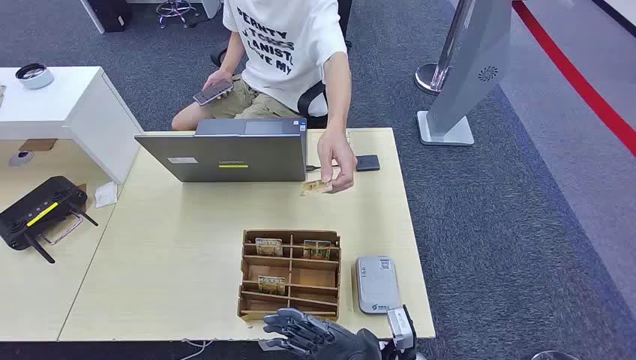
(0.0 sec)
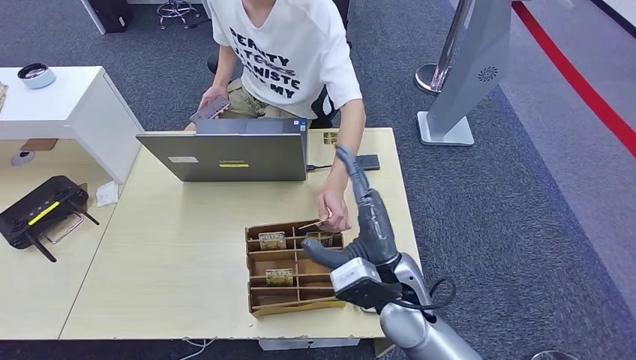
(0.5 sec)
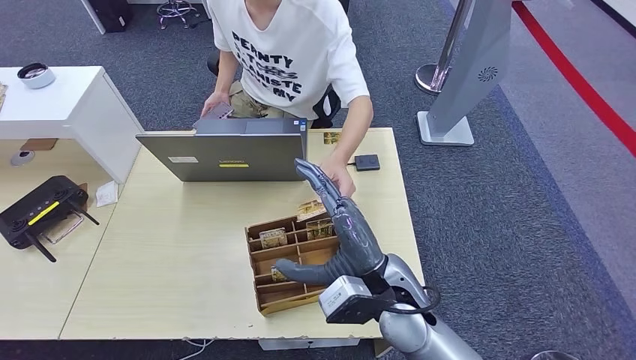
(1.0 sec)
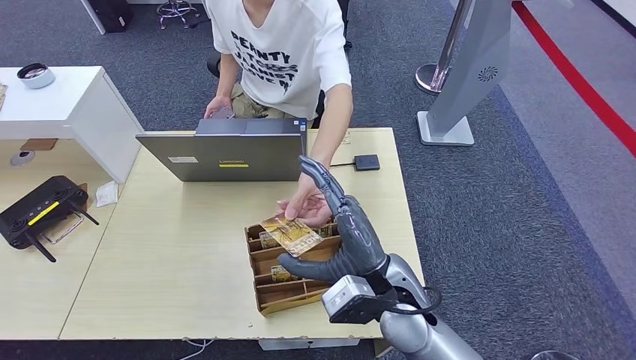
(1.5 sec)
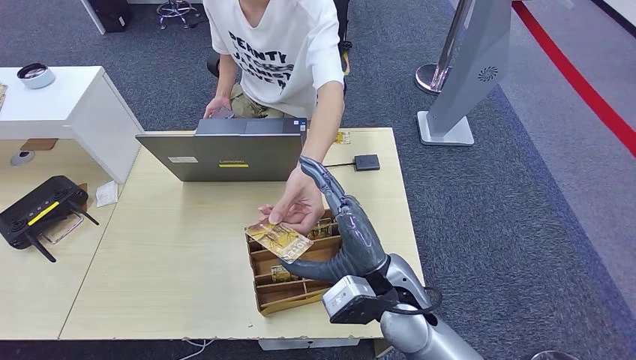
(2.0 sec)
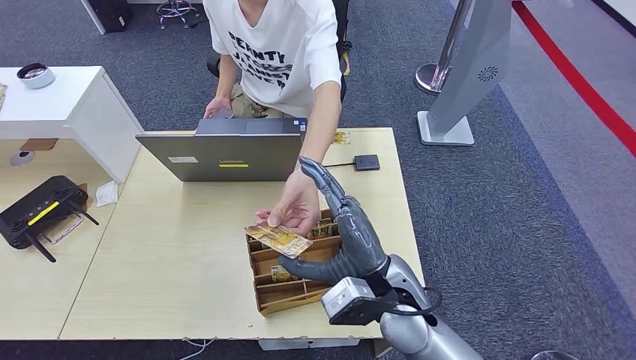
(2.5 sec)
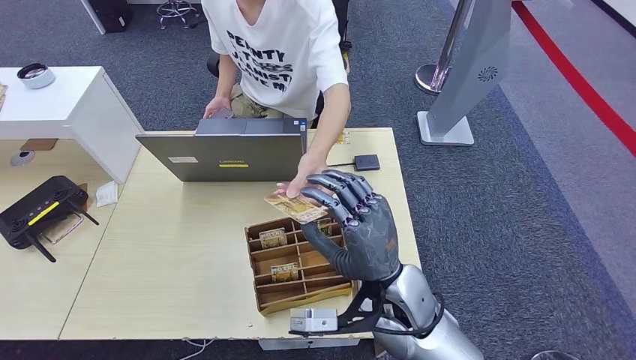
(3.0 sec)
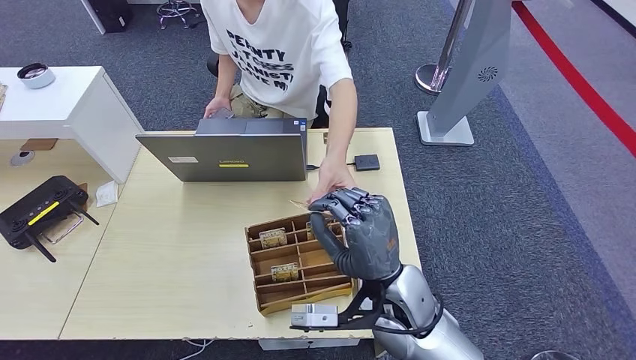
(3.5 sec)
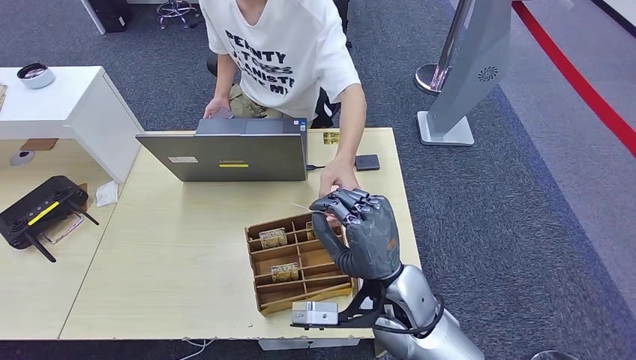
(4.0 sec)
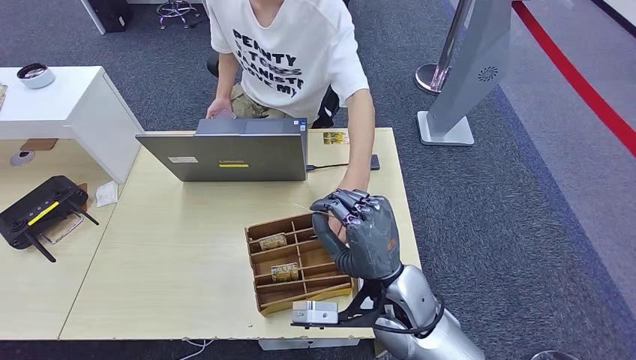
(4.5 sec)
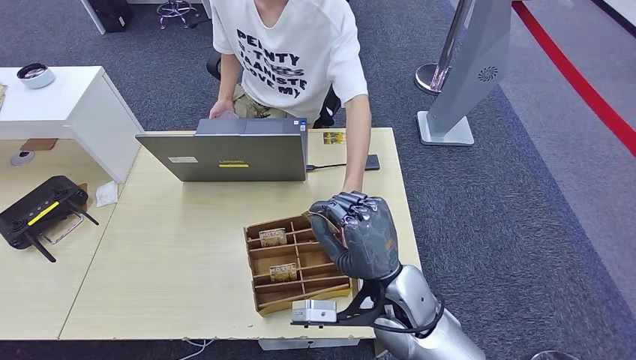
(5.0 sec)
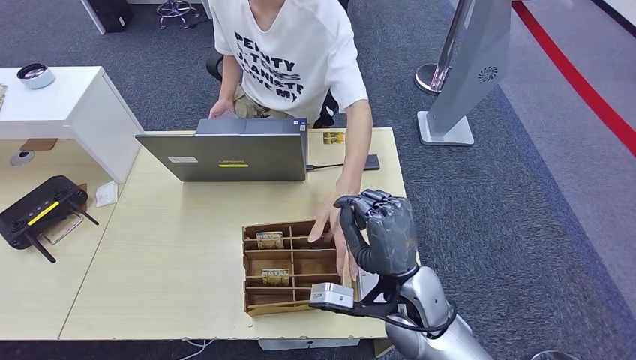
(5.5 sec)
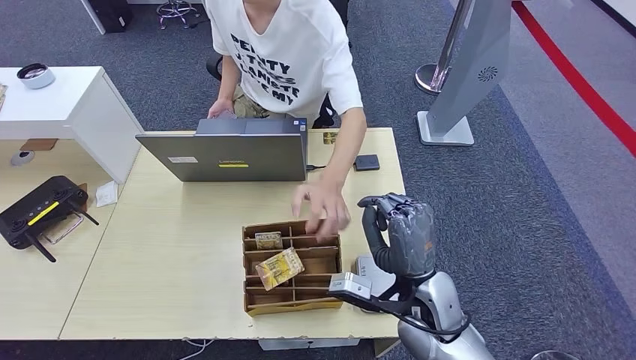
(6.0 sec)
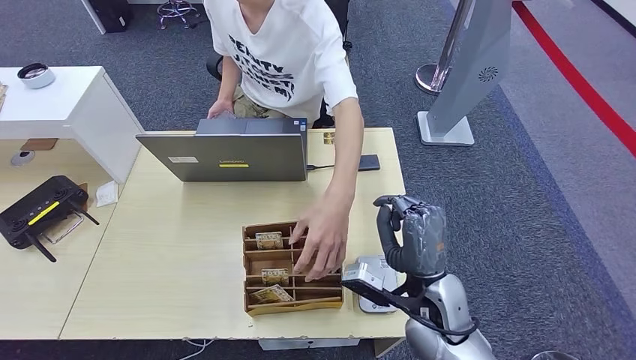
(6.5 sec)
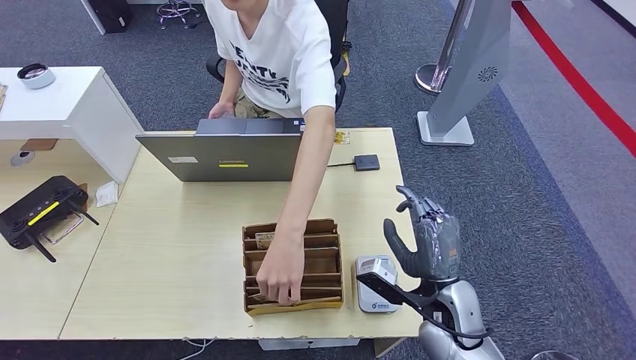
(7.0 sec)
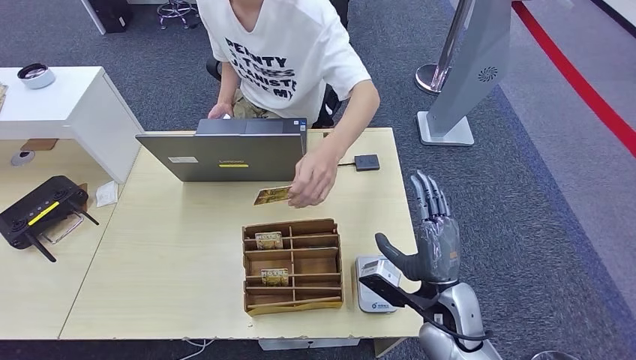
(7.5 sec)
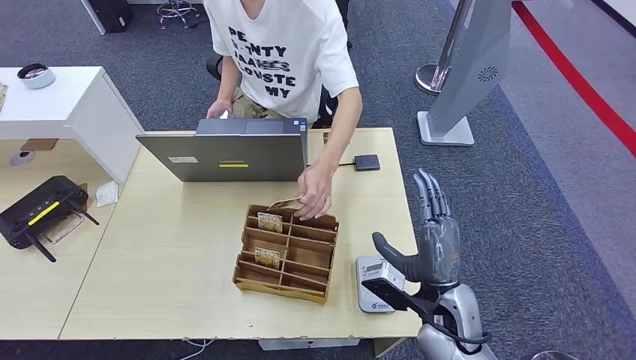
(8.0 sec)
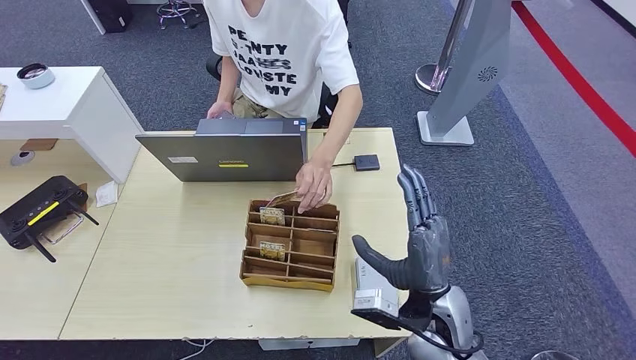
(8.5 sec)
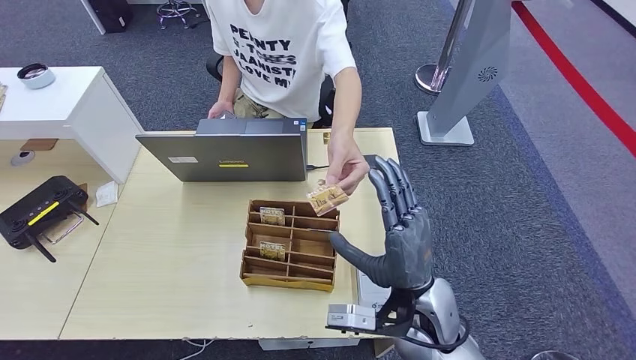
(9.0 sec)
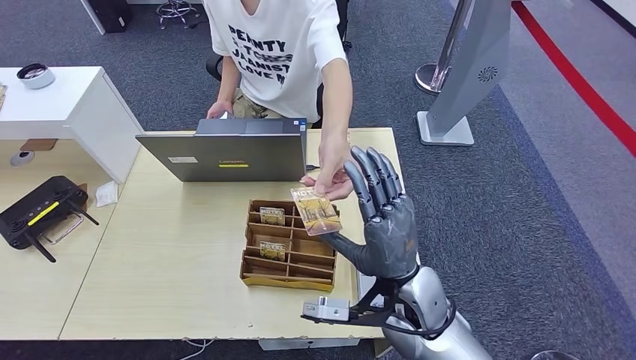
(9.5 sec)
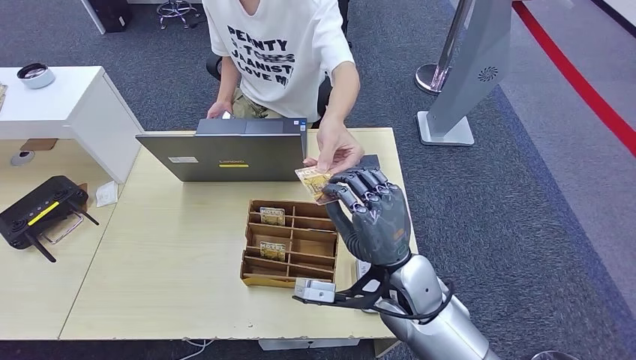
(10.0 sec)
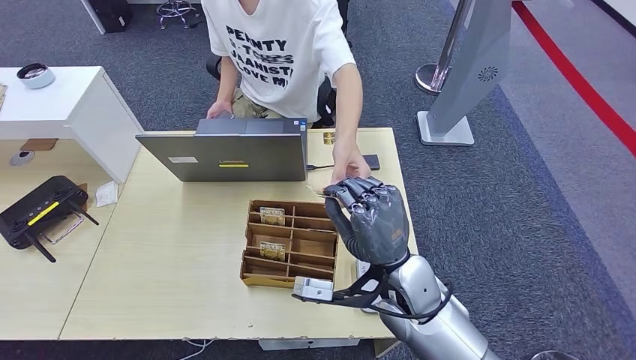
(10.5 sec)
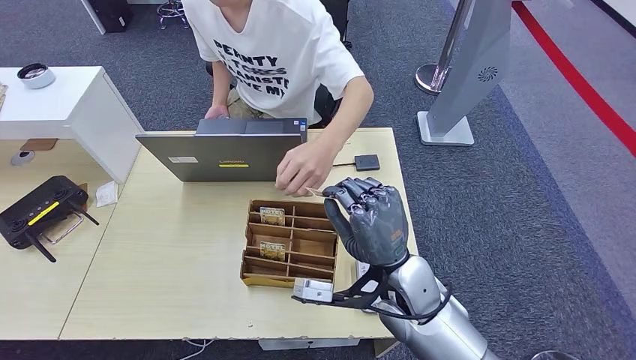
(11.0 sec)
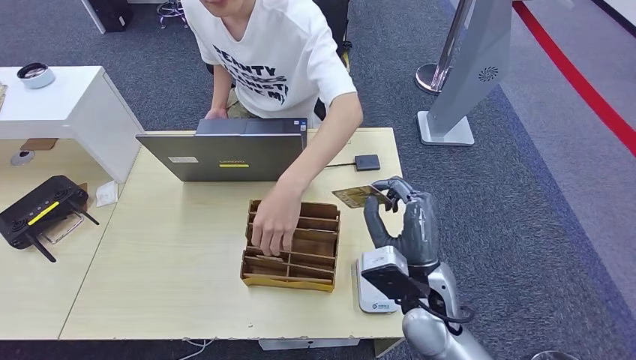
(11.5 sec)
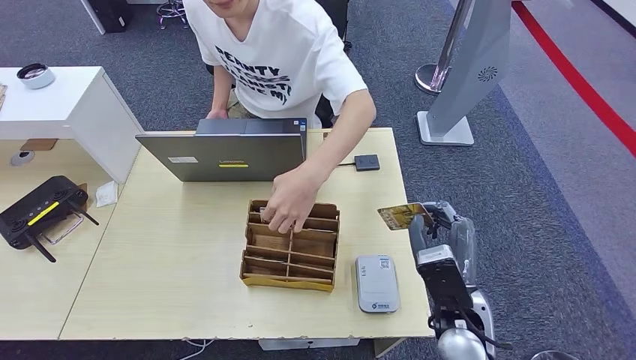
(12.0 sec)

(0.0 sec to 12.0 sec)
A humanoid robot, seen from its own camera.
Step, 0.0 sec - 10.5 sec: Take the ID card from the person's hand.
4.0 sec - 6.0 sec: The right hand changes place by some 5 cm.
6.0 sec - 8.0 sec: The hands move only a little.
8.0 sec - 10.0 sec: The right hand travels to the left and upward by roughly 10 cm.
10.0 sec - 12.0 sec: The right hand heads to the right and backward, covering about 10 cm.

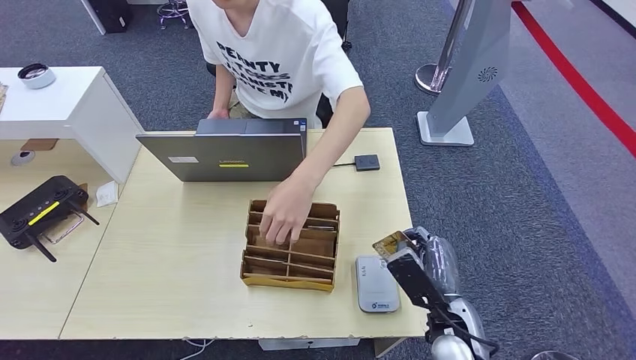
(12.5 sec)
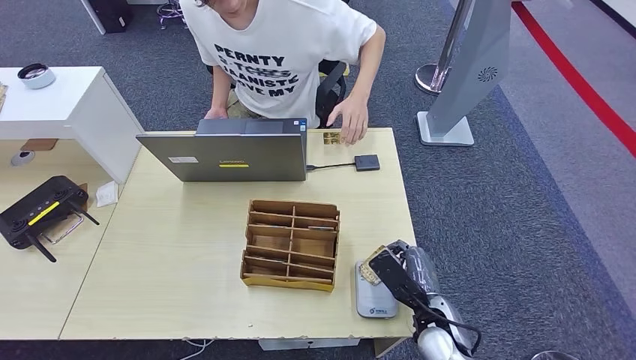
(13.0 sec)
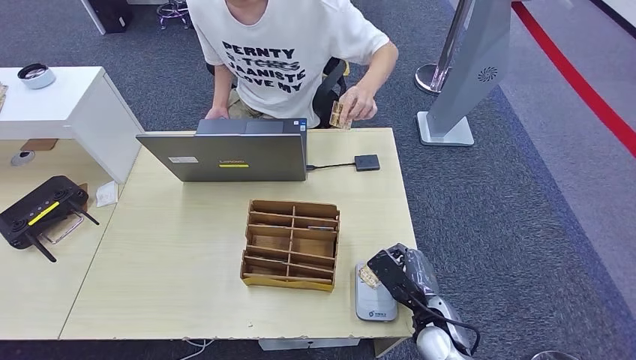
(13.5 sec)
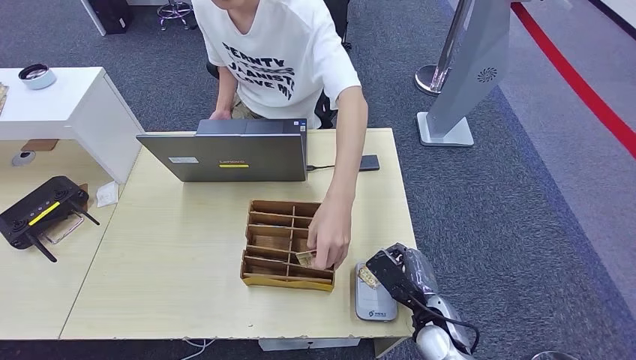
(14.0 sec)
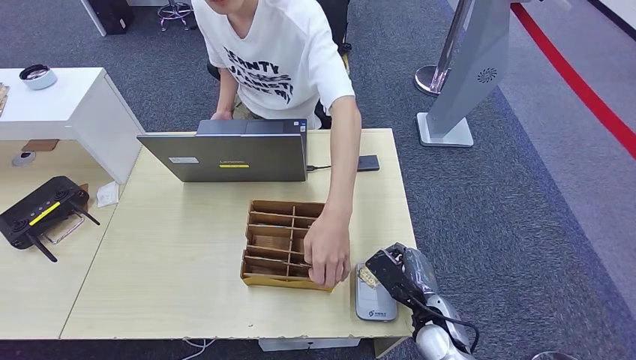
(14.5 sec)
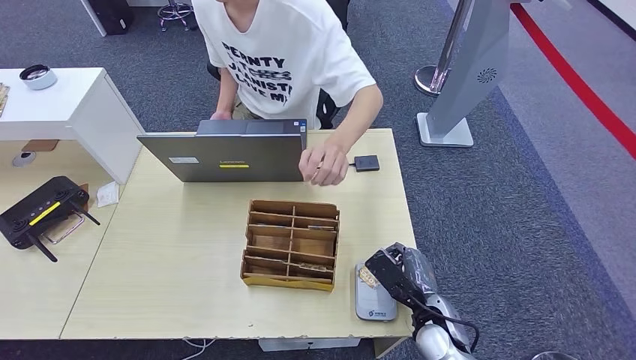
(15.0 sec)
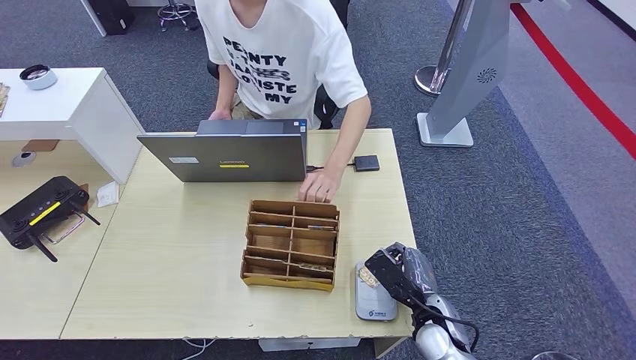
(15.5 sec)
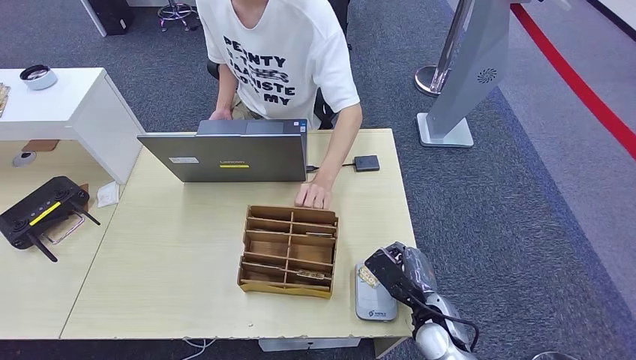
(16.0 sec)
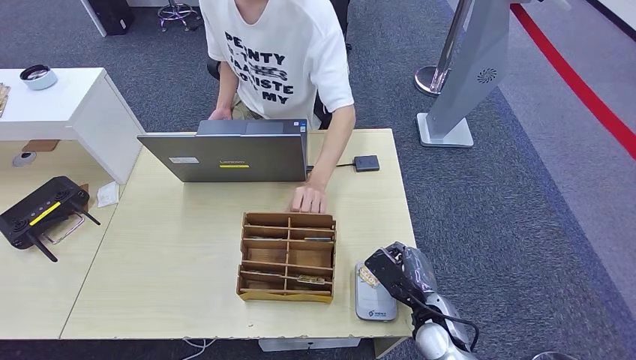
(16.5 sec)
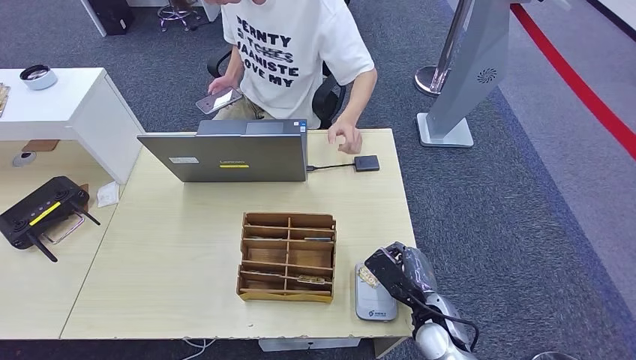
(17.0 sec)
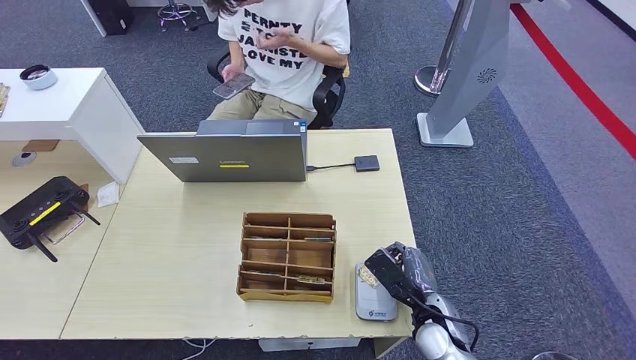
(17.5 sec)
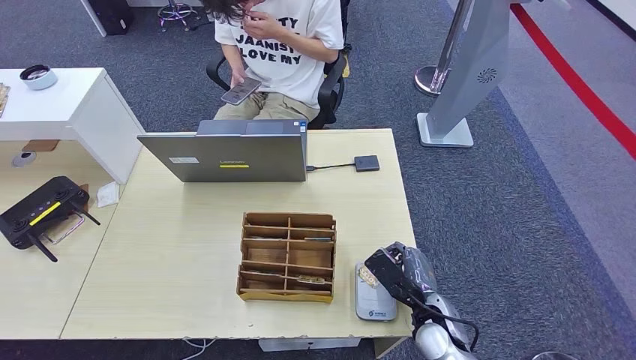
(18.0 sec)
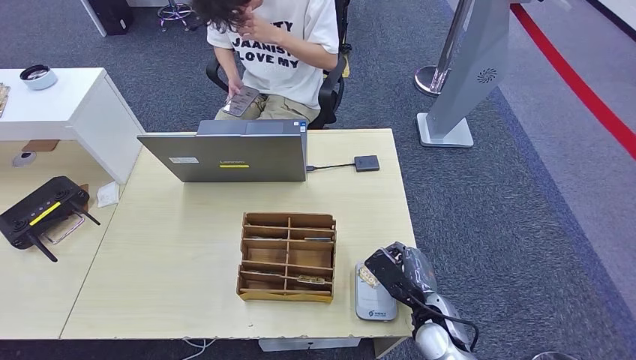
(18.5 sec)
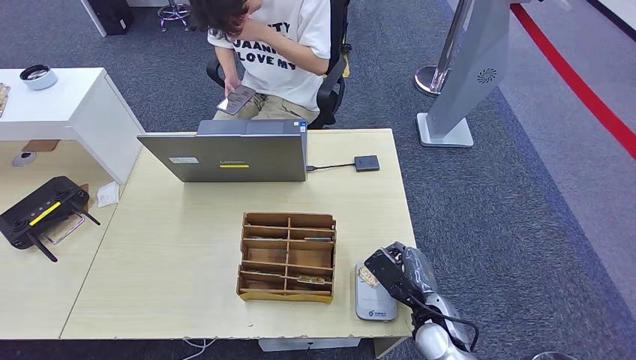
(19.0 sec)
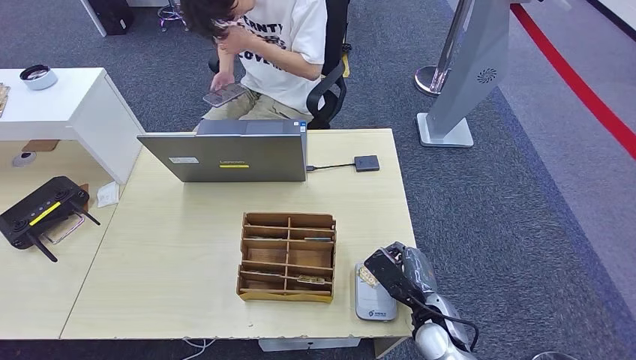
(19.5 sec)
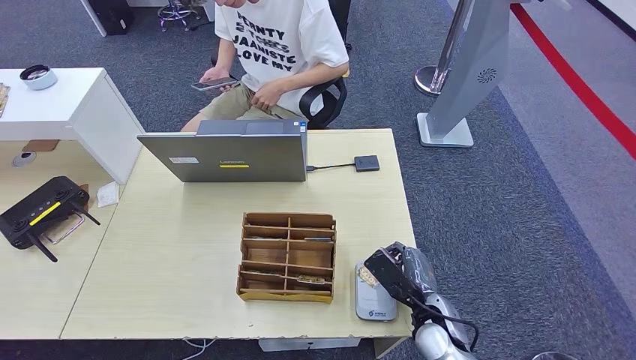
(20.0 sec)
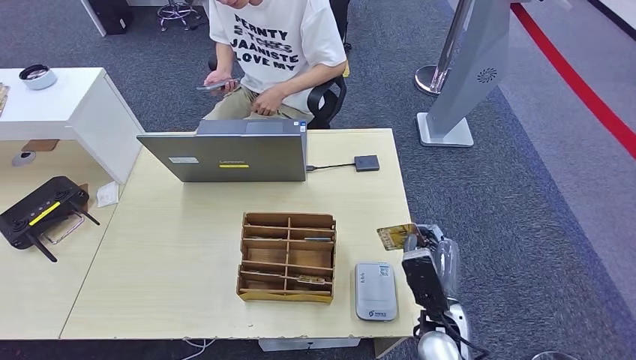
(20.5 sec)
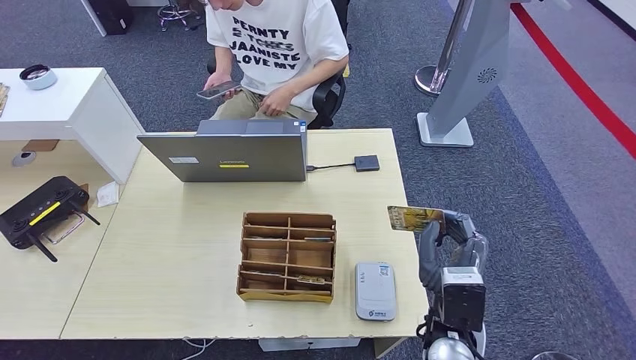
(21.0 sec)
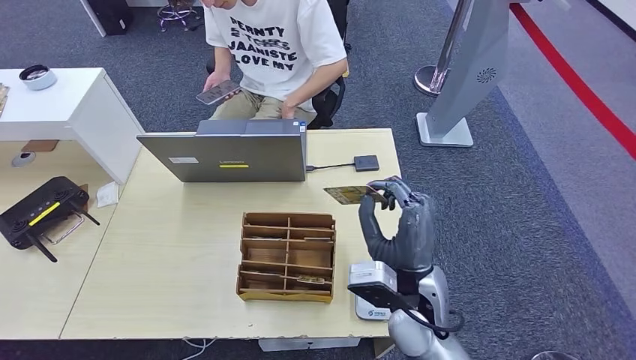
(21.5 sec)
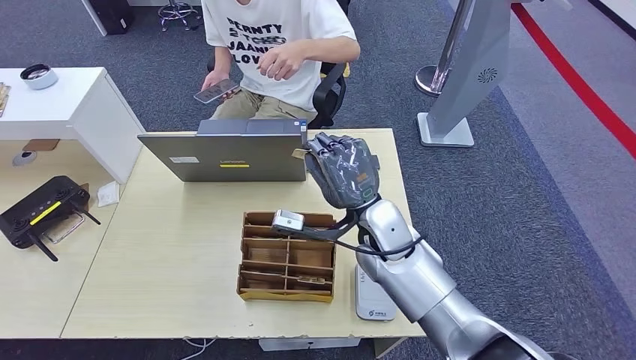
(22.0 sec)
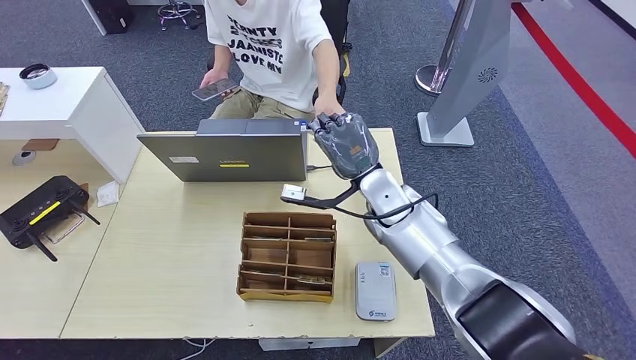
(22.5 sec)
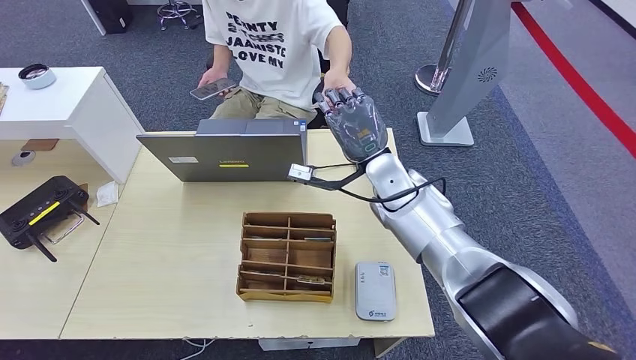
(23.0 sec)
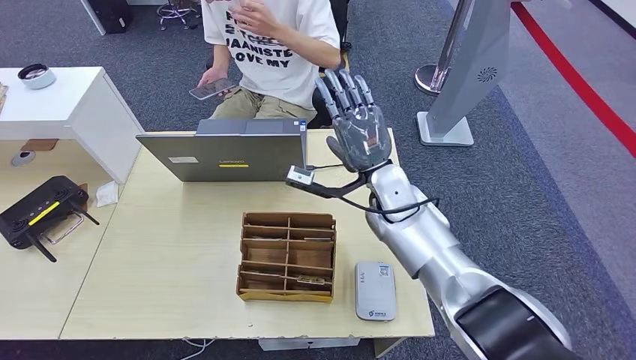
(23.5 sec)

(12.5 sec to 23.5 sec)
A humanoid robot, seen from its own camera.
Step, 14.0 sec - 23.0 sec: Hand the ID card to the person.
12.5 sec - 14.5 sec: The right hand heads downward, covering roughly 5 cm.
14.5 sec - 20.0 sec: The two hands keep their place.
20.0 sec - 21.5 sec: The right hand moves upward and to the left, about 15 cm.
21.5 sec - 23.5 sec: The right hand travels forward by about 15 cm.
